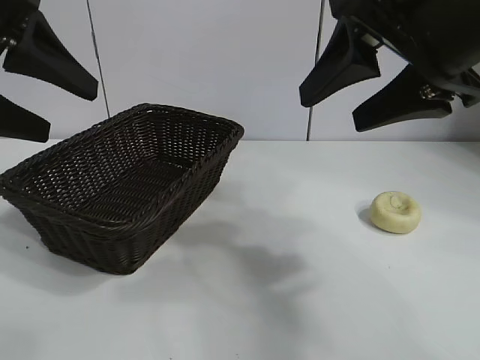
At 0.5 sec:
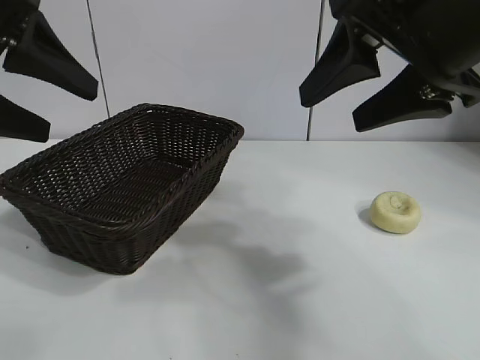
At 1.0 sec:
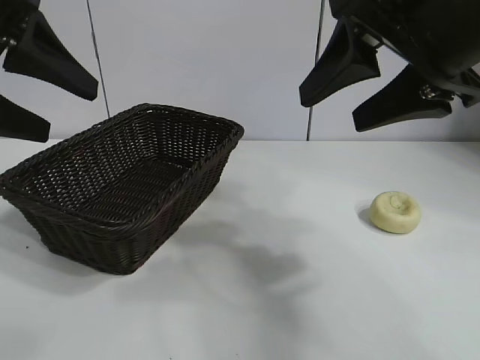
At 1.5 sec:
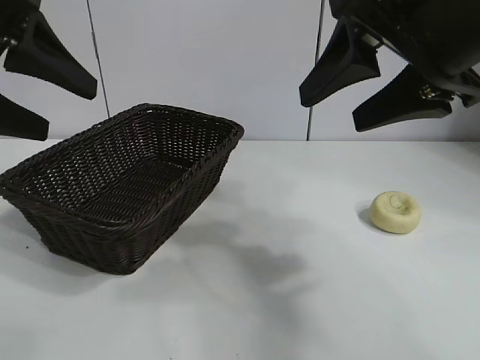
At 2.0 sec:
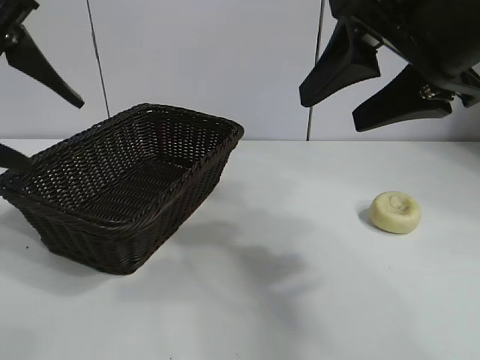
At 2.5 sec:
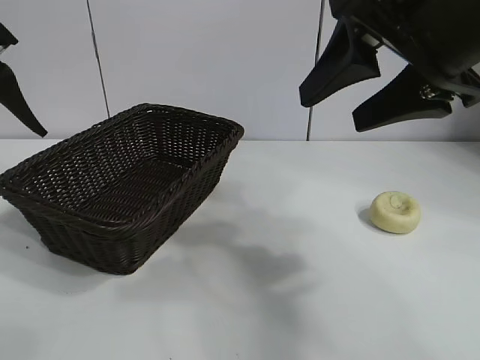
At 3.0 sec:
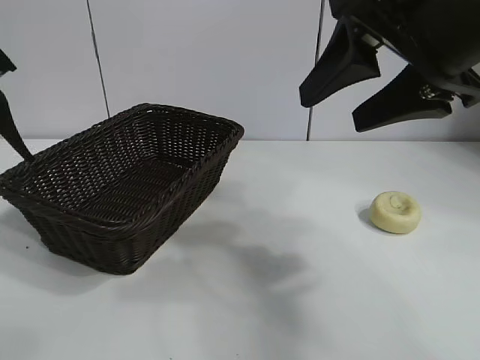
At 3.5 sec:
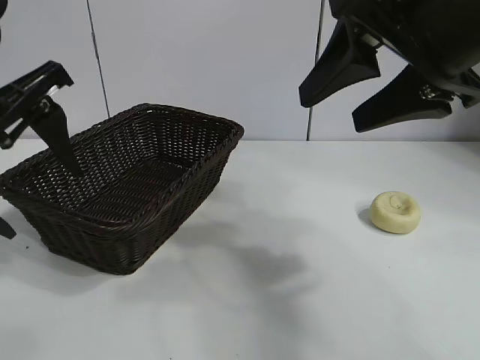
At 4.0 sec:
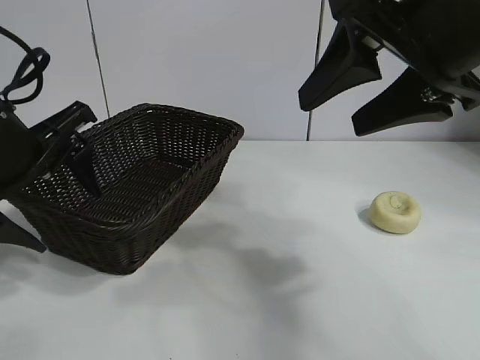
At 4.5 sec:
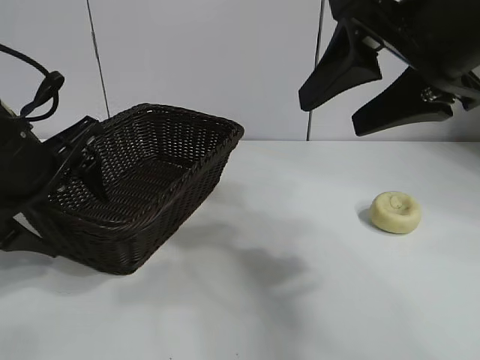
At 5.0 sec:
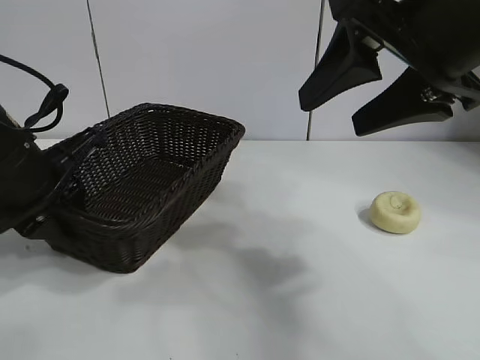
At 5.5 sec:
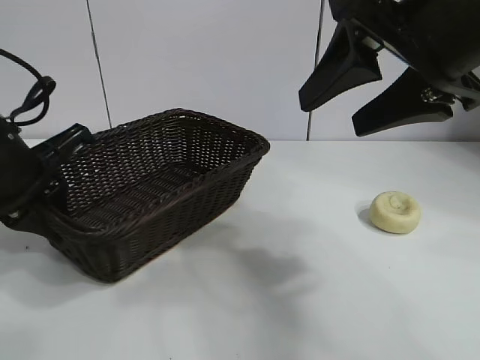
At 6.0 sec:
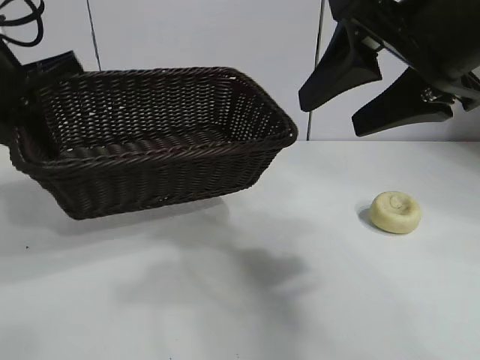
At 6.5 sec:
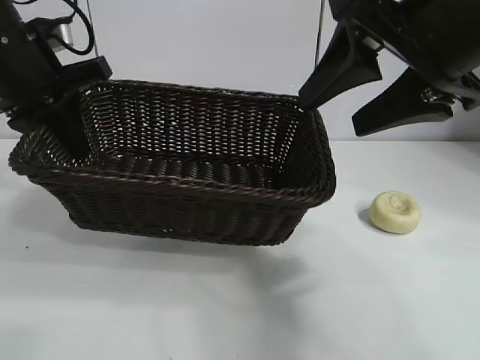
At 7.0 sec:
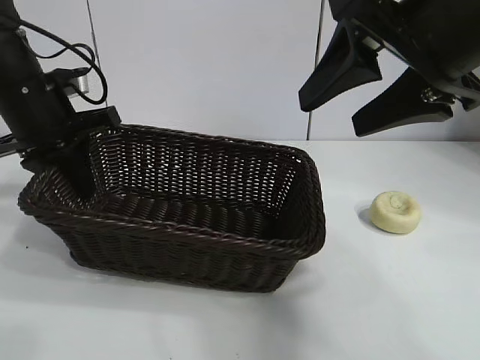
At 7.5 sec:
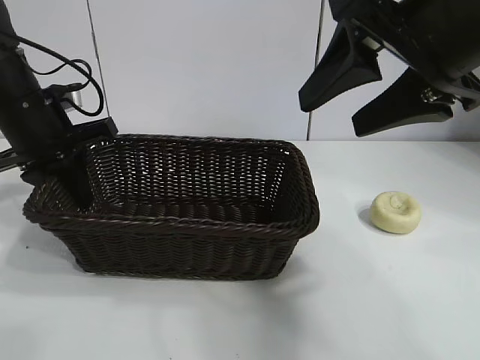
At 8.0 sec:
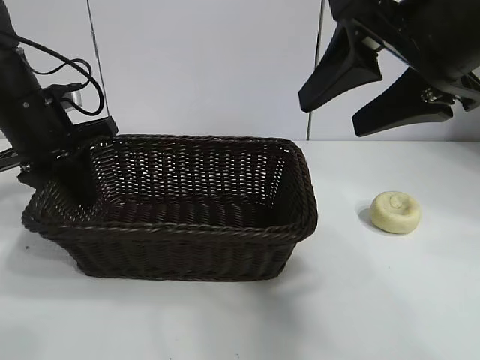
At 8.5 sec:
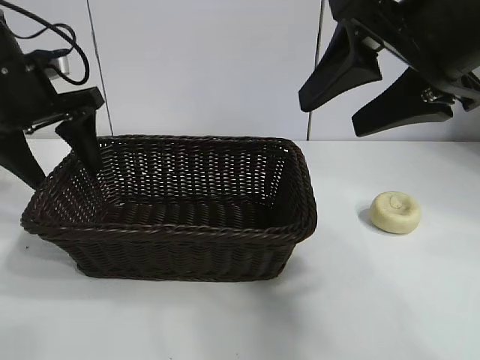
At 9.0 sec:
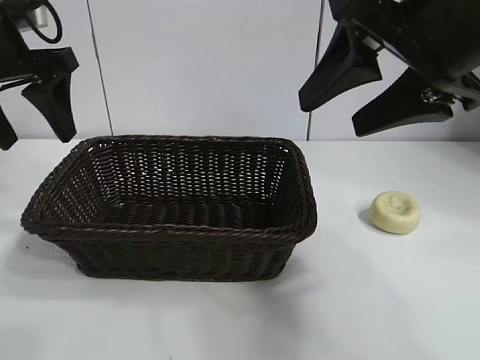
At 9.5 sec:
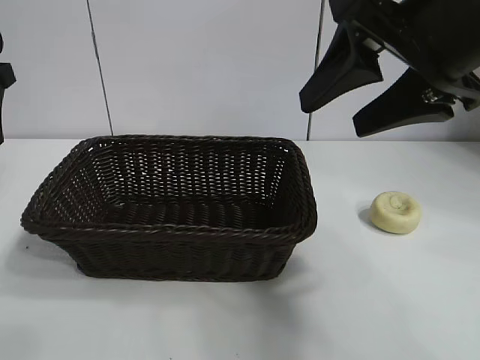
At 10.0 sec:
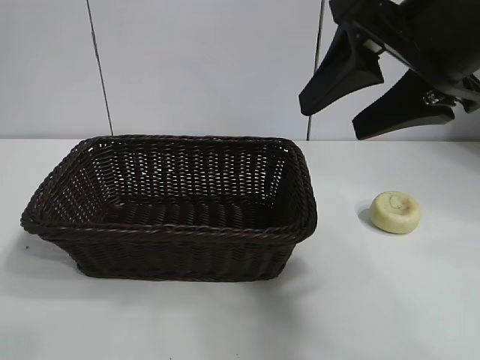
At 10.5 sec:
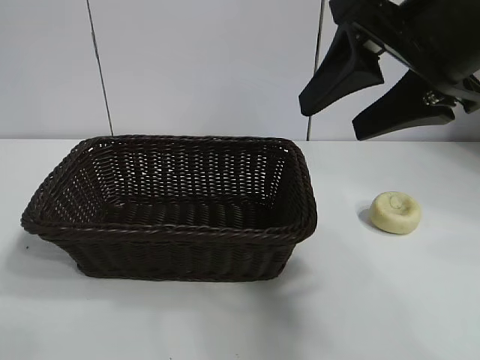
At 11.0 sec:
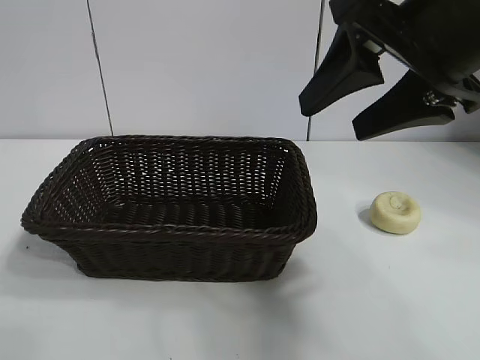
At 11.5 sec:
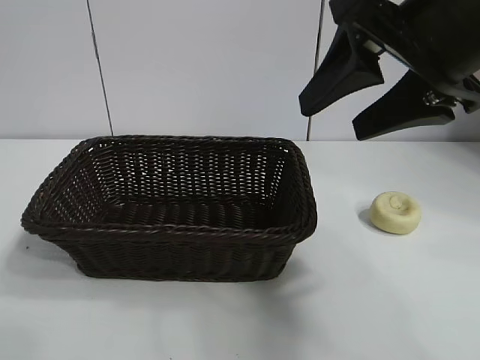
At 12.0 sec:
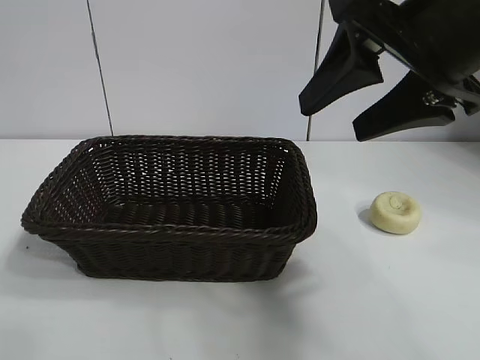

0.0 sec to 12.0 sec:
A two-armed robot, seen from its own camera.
Task of the whole recording: pick up the egg yolk pastry and put it into the basket.
Step, 2.0 sec to 5.0 sec: Grasp the basket with left gripper.
Step, 5.5 sec to 8.5 sec: Place the basket in the center of view with left gripper.

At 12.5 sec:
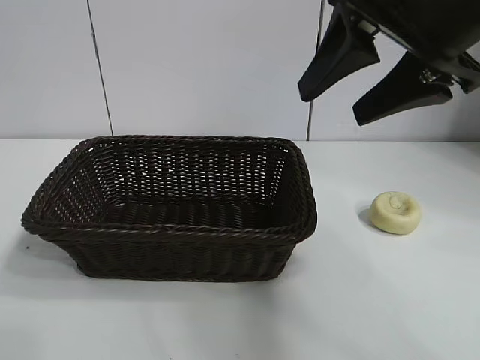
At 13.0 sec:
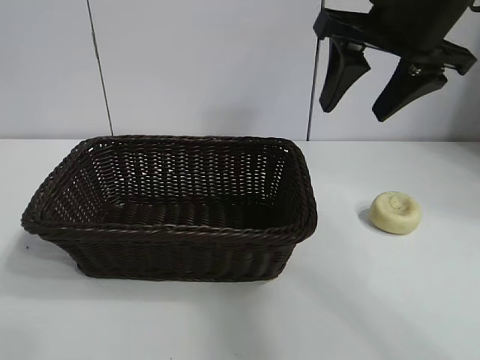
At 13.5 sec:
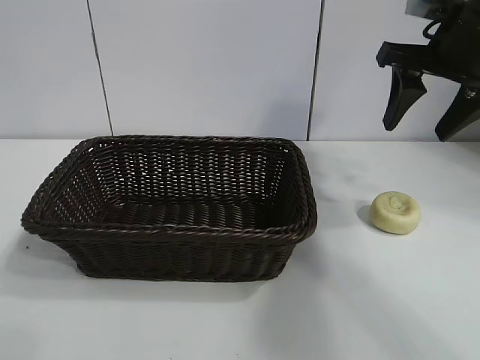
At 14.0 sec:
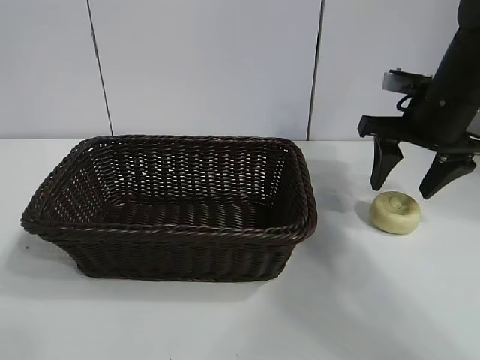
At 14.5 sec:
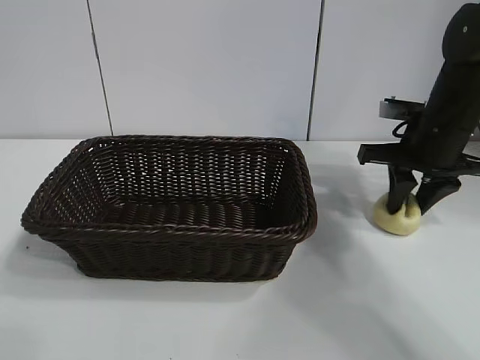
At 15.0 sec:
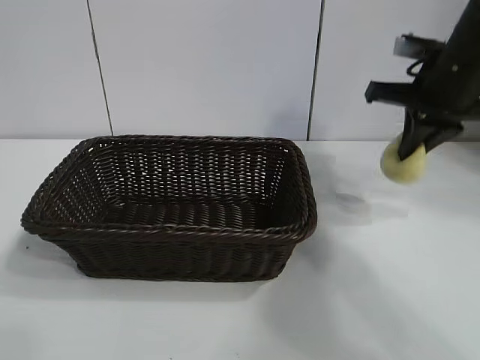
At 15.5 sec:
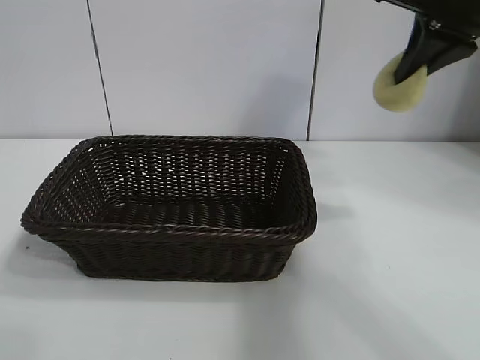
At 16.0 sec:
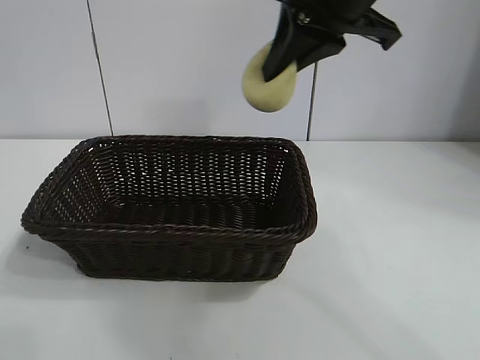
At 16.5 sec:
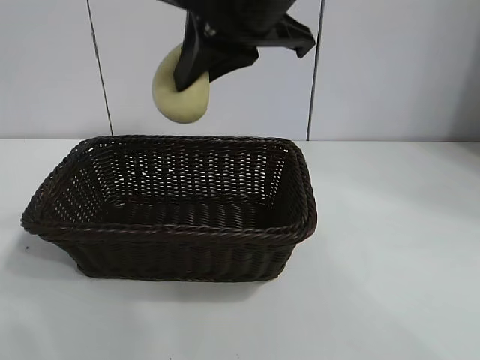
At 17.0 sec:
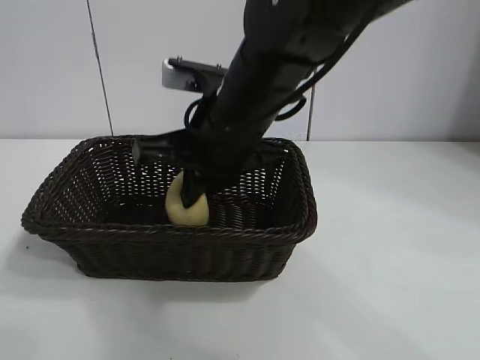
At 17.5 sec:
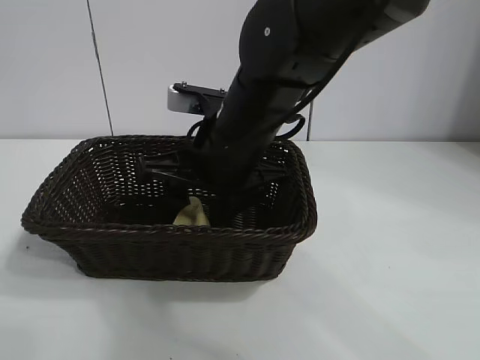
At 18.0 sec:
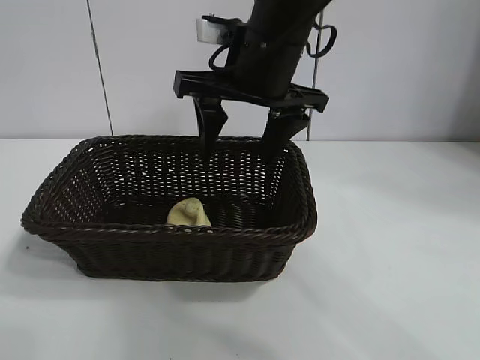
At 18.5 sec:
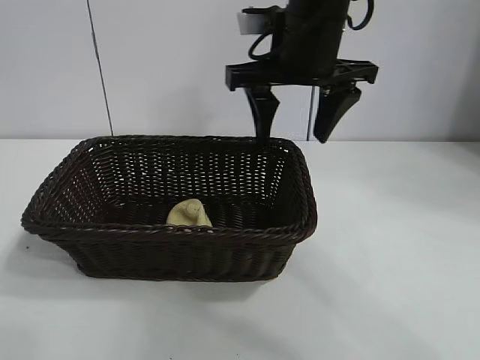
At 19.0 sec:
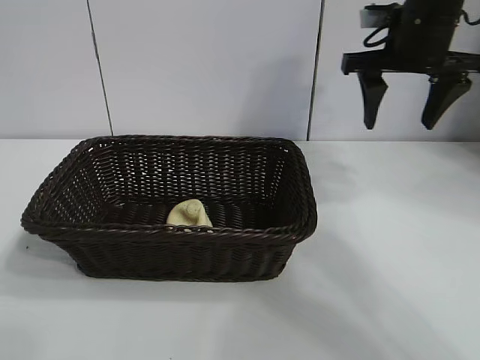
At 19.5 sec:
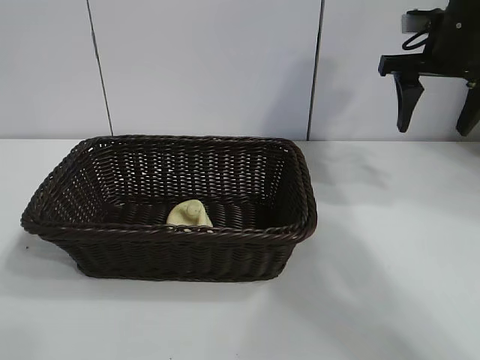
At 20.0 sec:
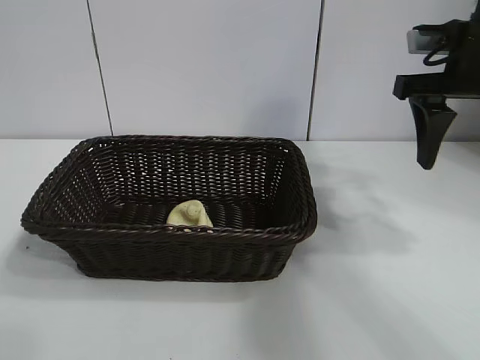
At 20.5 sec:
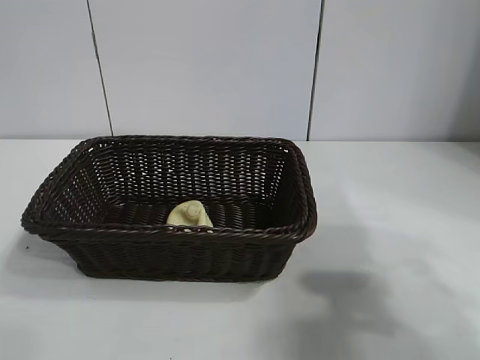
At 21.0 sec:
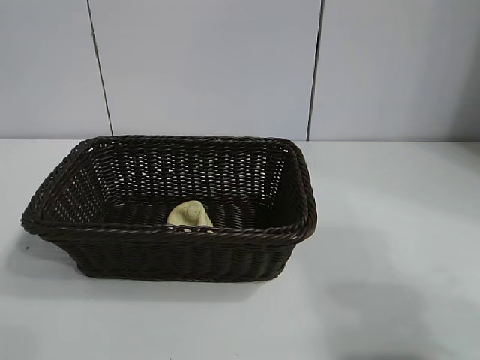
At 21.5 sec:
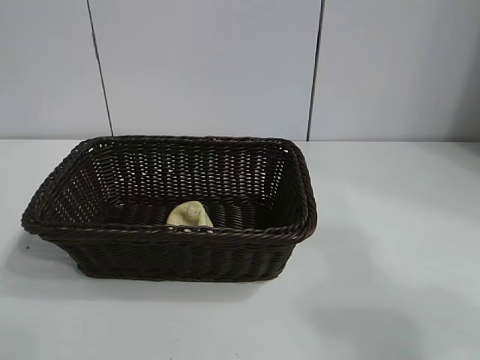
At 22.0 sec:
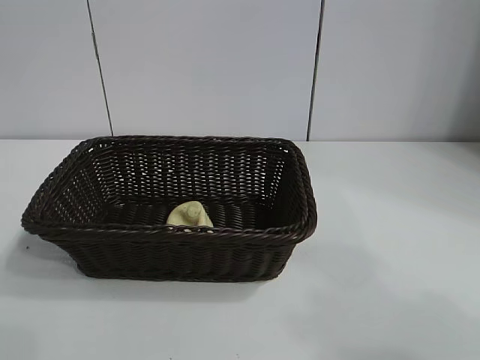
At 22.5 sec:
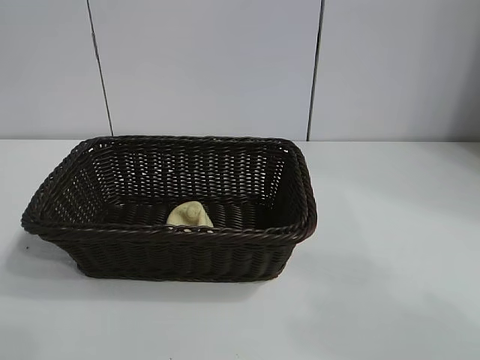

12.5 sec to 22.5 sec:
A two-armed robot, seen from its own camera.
Task of the whole recording: pick up the egg yolk pastry and put it into the basket.
Step, 12.5 sec to 14.5 sec: Grasp egg yolk pastry with right gripper.
Step, 15.0 sec to 17.5 sec: Place the egg yolk pastry in the basket with right gripper.

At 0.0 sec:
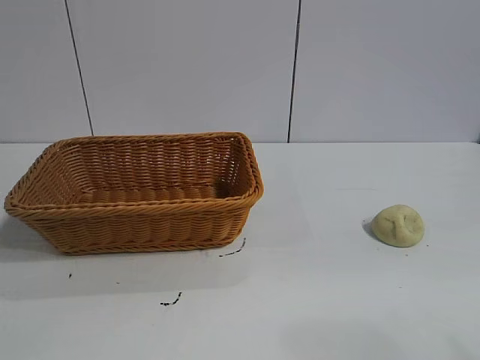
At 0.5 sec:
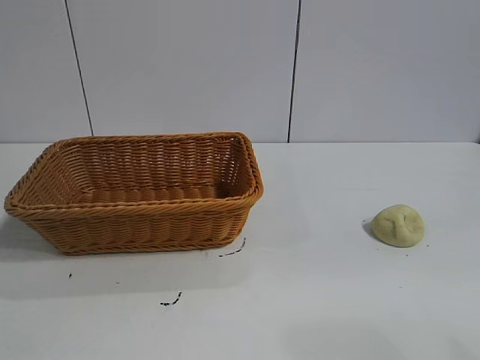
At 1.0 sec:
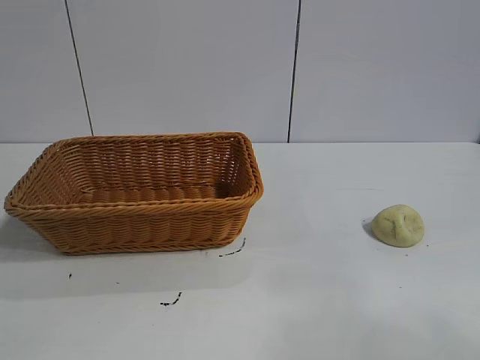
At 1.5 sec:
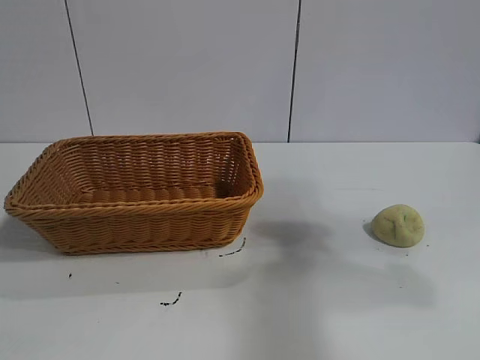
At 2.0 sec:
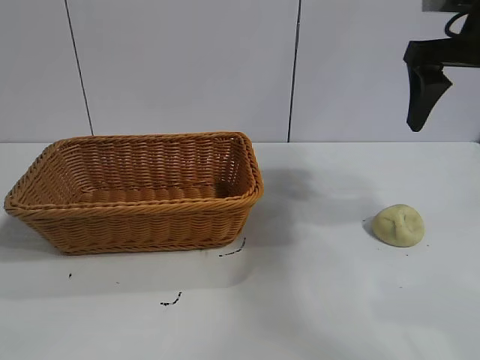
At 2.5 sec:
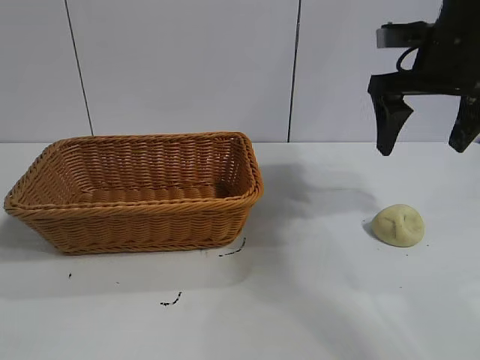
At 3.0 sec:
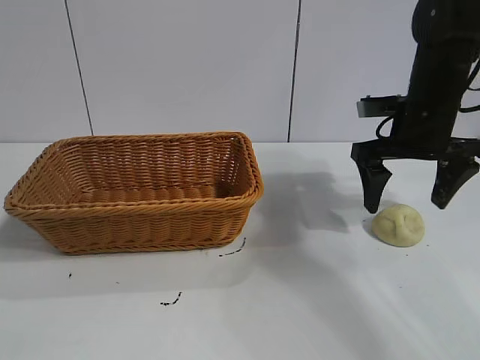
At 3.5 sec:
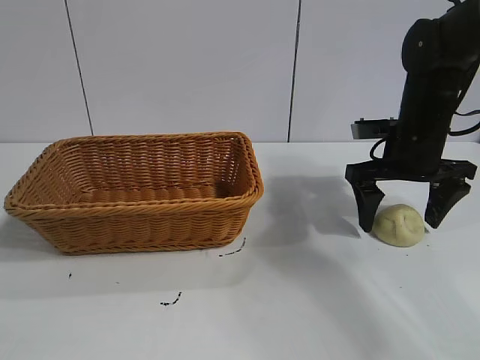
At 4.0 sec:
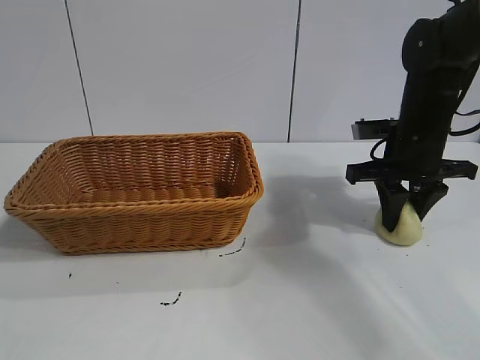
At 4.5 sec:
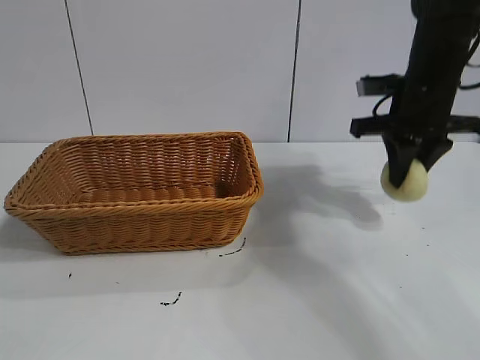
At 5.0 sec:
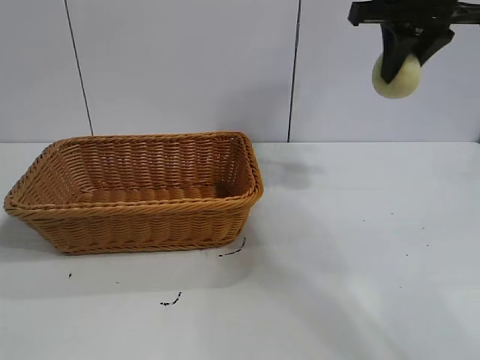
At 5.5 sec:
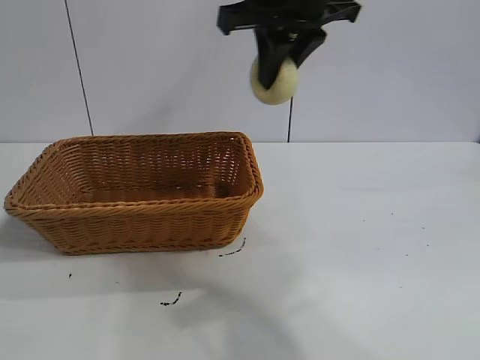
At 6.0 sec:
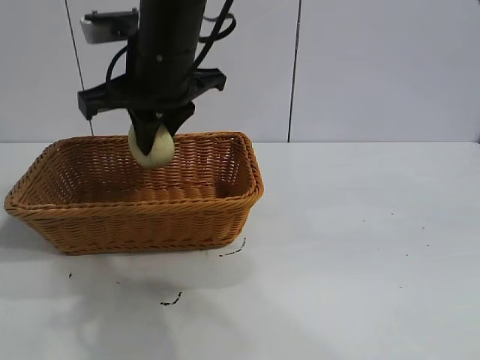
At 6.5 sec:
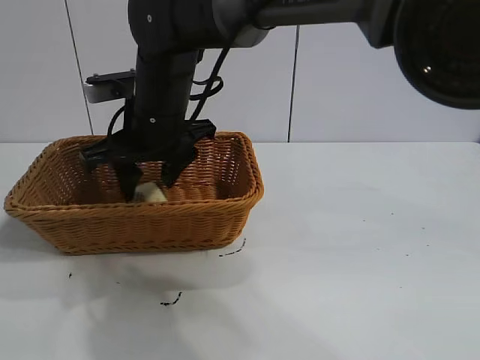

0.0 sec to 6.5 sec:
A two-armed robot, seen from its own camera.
Task of the whole recording: pick up the egg yolk pastry and put it into the basket.
Step, 1.0 sec to 4.0 sec: Grasp egg yolk pastry with right gripper.
